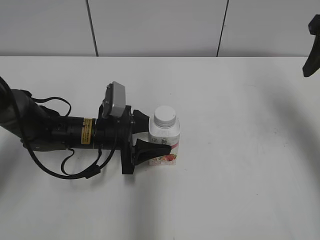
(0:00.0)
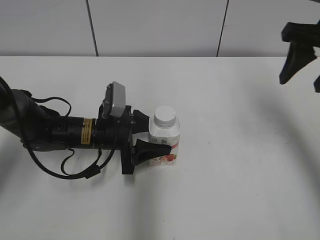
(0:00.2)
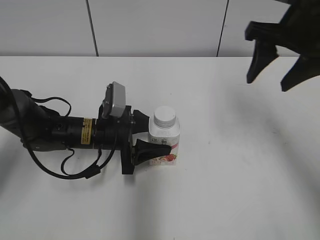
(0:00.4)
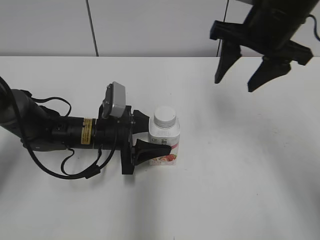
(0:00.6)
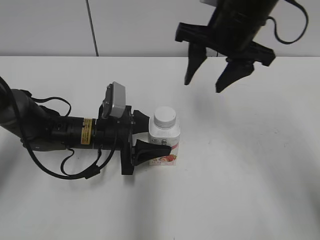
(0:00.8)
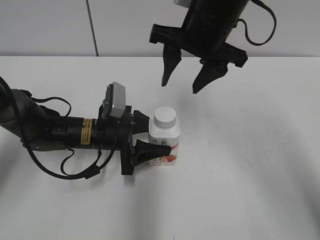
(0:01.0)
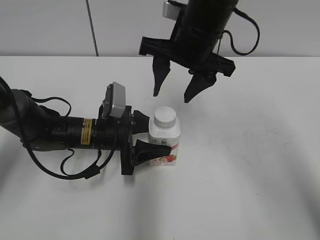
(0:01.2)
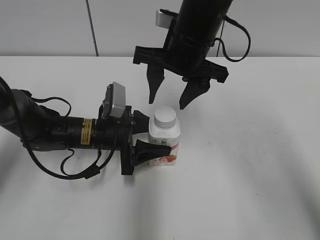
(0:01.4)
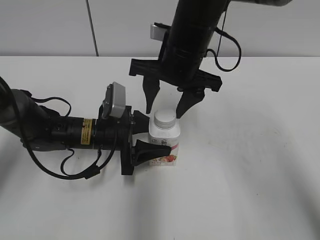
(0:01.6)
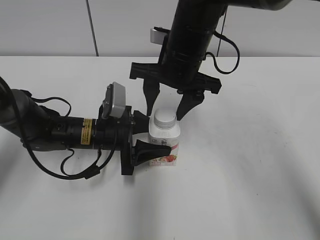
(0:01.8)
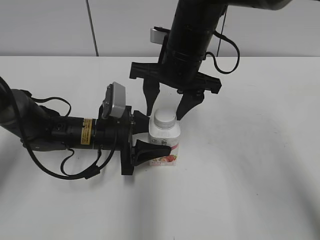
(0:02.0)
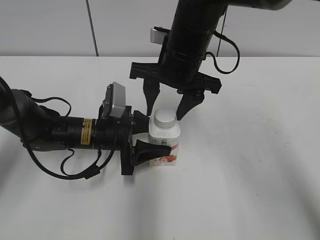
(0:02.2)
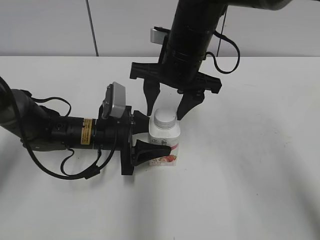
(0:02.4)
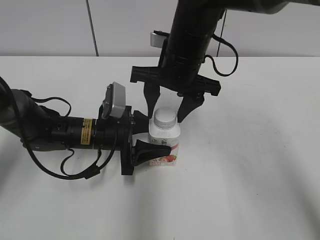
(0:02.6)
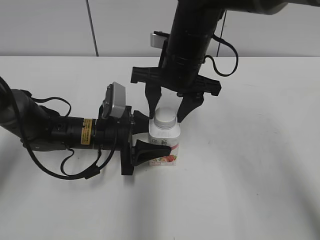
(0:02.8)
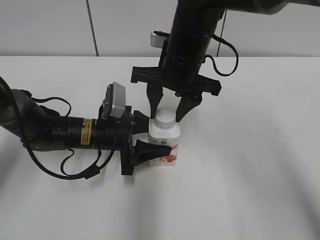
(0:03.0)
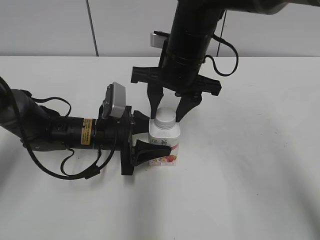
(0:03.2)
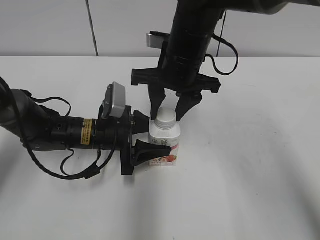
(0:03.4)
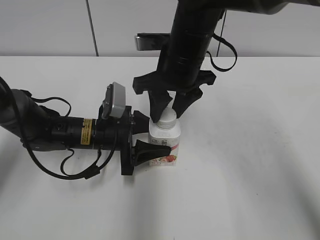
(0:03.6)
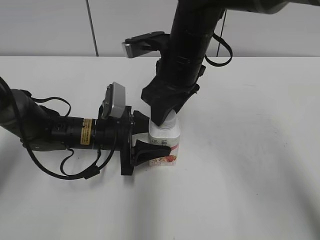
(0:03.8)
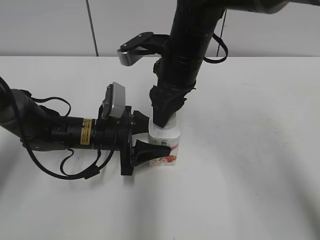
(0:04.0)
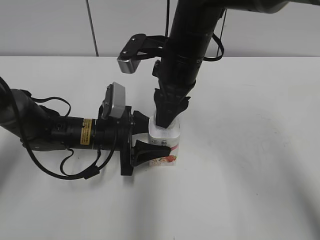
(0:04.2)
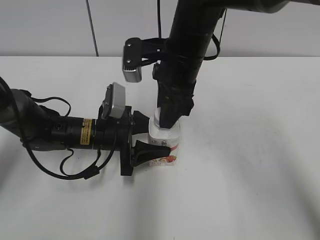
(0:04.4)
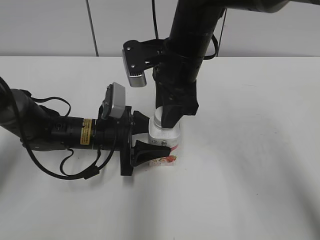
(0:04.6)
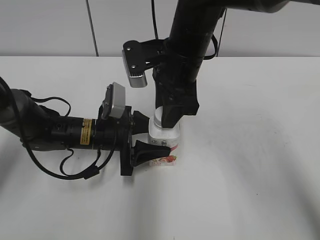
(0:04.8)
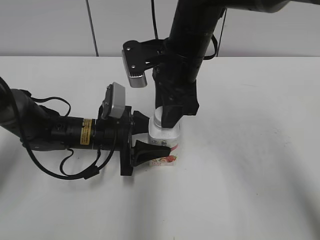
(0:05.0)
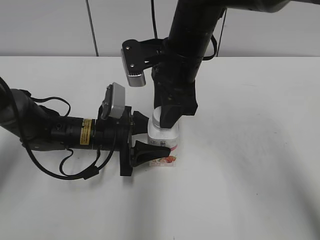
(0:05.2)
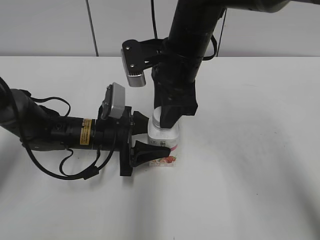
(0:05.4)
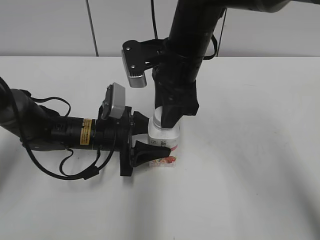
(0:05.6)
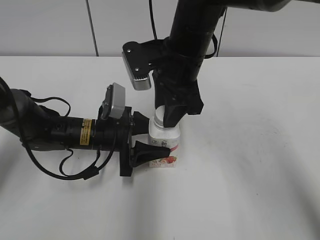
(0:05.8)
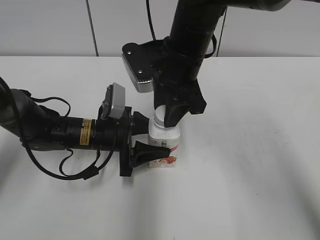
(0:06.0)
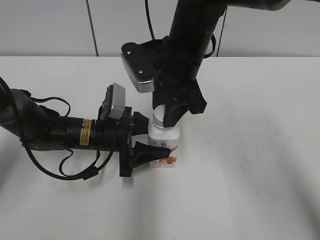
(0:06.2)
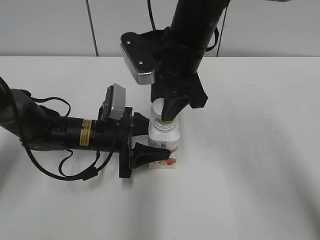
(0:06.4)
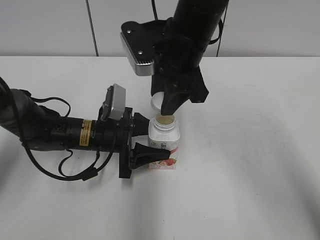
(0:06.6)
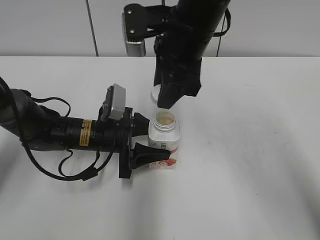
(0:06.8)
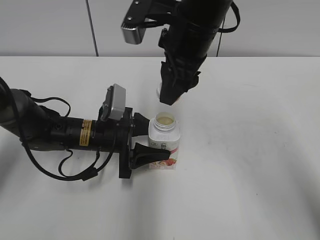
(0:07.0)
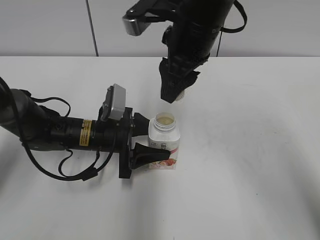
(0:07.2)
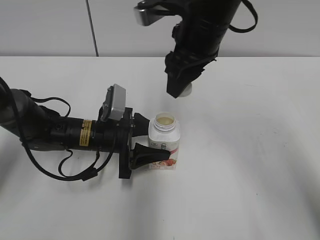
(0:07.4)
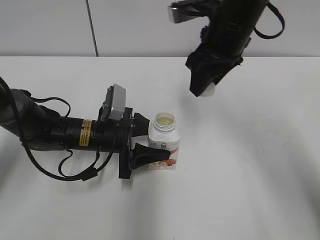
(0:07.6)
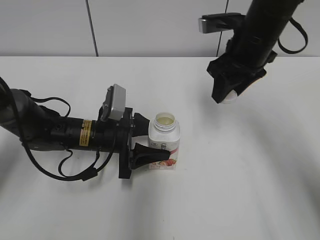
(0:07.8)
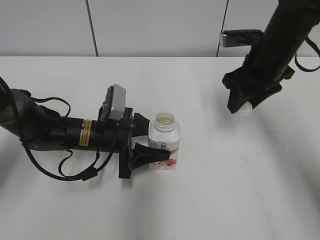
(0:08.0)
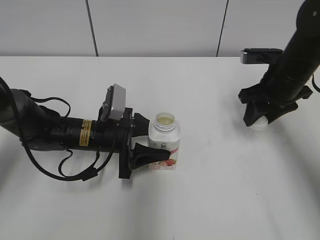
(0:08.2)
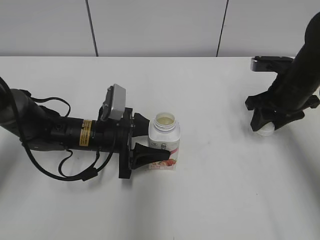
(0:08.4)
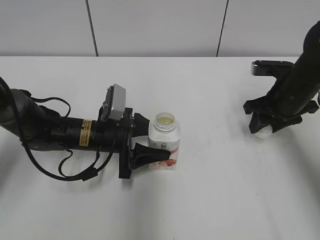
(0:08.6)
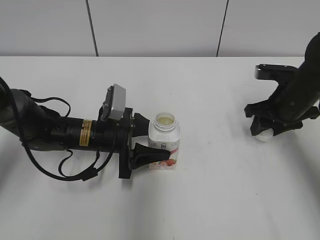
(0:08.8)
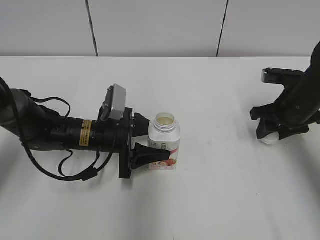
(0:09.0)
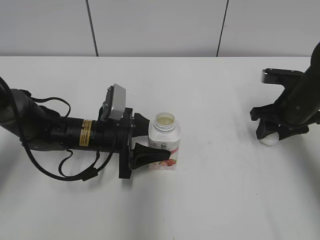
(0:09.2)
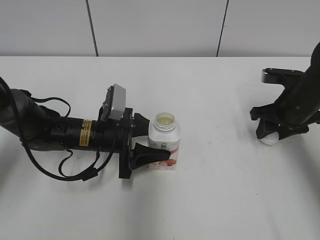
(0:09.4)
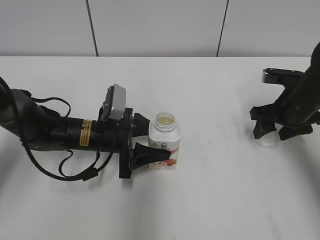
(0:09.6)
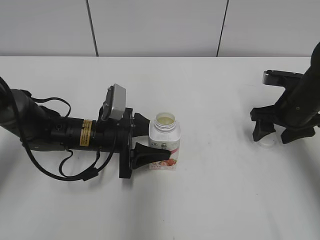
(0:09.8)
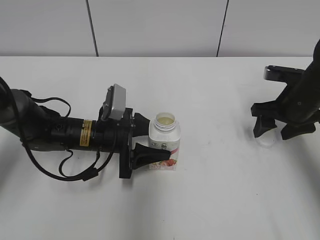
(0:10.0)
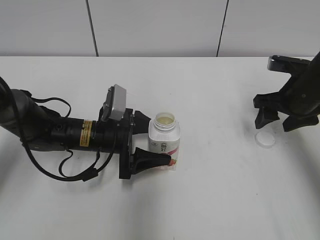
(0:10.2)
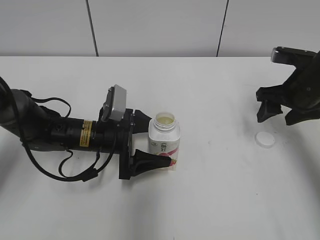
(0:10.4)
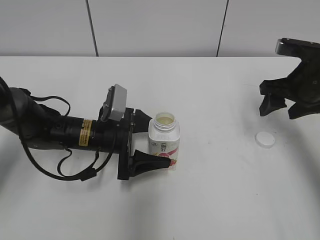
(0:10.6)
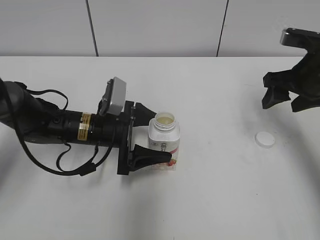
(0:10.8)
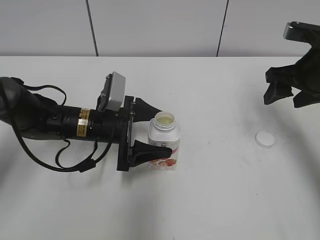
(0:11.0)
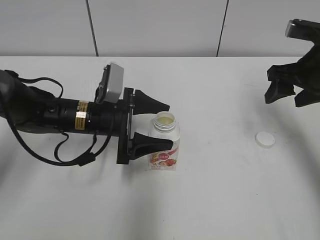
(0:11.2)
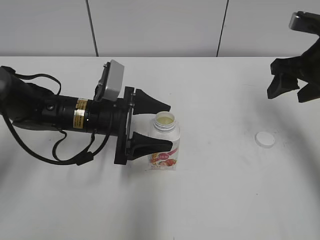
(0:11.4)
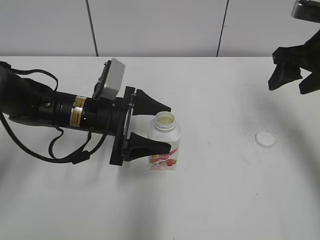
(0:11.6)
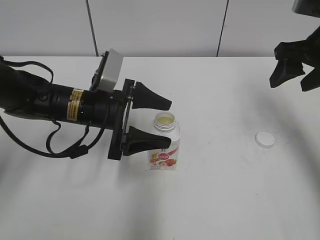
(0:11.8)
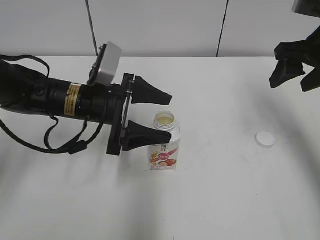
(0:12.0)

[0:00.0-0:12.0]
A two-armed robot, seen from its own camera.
Step, 0:06.6 to 0:09.6: Place the bottle cap on the right.
0:00.0 to 0:01.6: The right gripper goes about 25 cm to the left.
0:01.6 to 0:03.0: The right gripper closes up.
0:06.0 to 0:07.6: The right gripper is displaced to the right by about 5 cm.
0:07.6 to 0:09.0: The right gripper goes approximately 20 cm to the right and downward.
0:09.0 to 0:10.4: The right gripper opens its fingers, while the left gripper opens.
0:10.4 to 0:12.0: Both grippers move upward, approximately 10 cm.

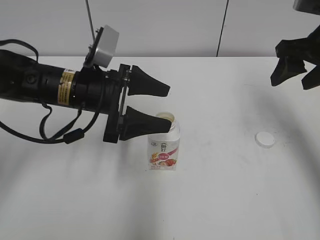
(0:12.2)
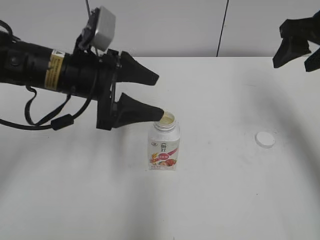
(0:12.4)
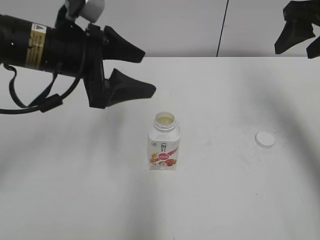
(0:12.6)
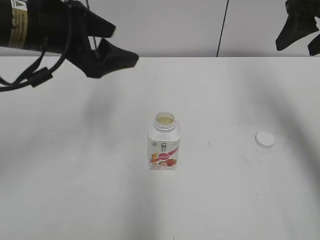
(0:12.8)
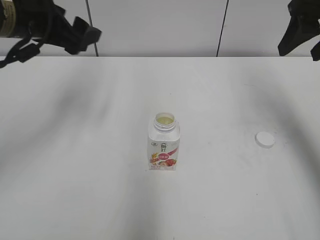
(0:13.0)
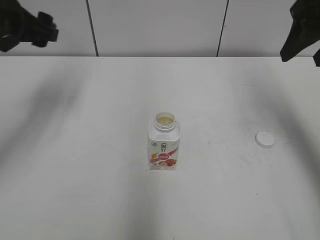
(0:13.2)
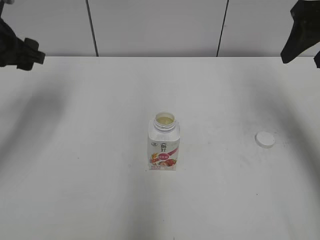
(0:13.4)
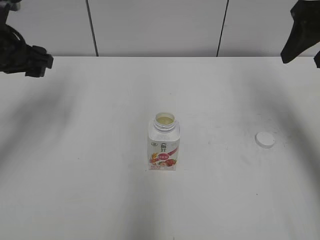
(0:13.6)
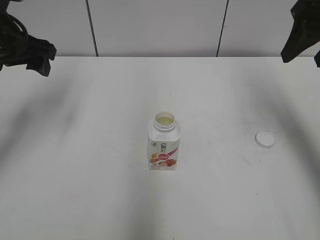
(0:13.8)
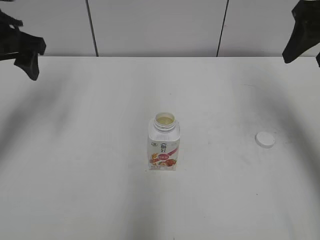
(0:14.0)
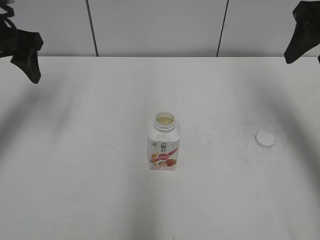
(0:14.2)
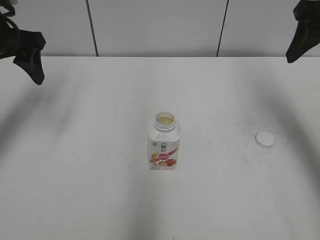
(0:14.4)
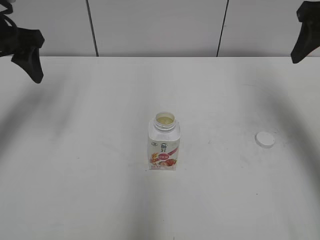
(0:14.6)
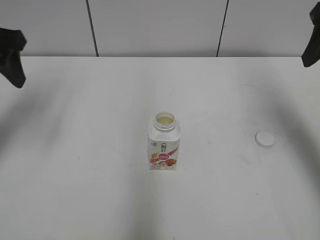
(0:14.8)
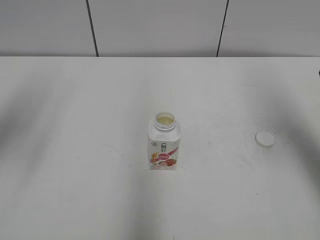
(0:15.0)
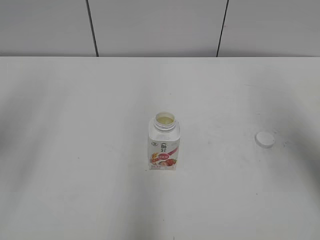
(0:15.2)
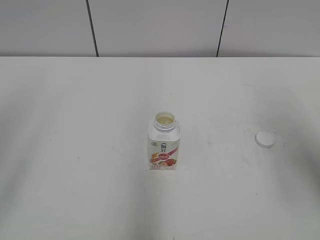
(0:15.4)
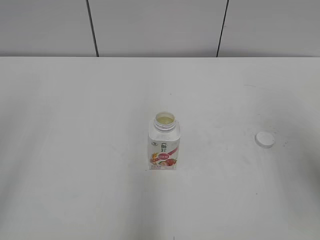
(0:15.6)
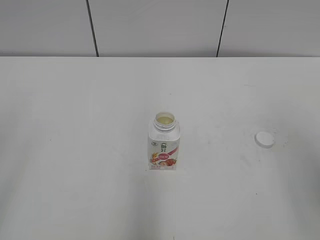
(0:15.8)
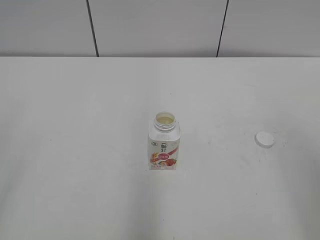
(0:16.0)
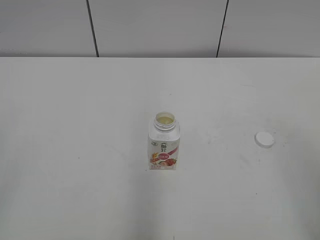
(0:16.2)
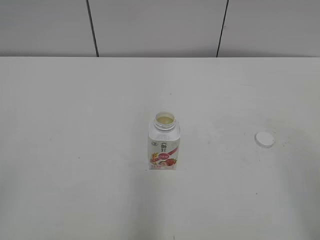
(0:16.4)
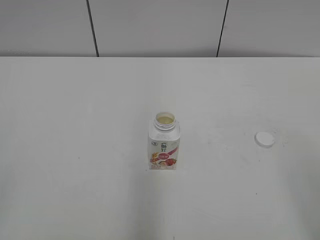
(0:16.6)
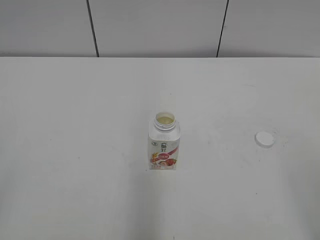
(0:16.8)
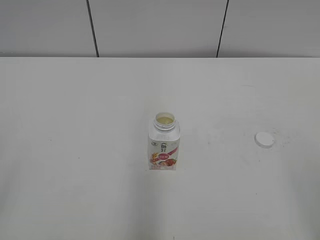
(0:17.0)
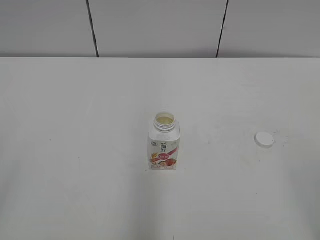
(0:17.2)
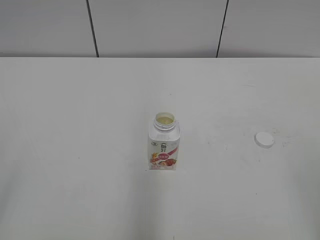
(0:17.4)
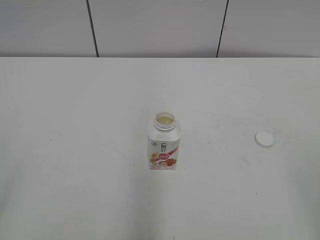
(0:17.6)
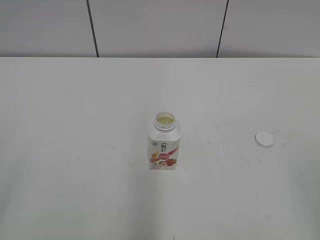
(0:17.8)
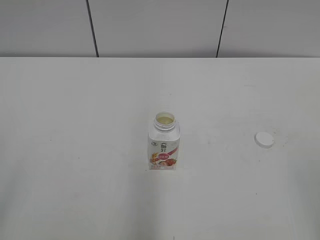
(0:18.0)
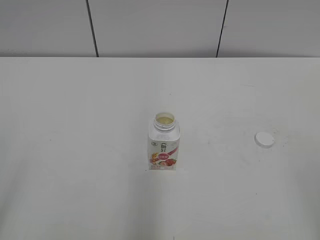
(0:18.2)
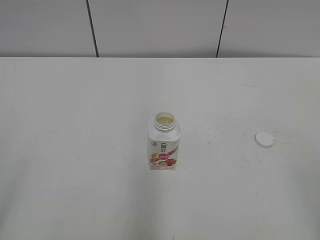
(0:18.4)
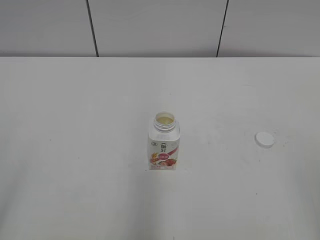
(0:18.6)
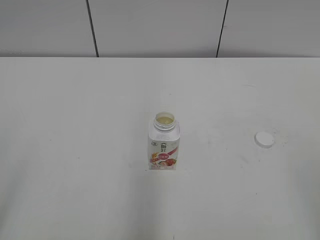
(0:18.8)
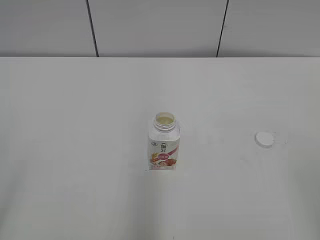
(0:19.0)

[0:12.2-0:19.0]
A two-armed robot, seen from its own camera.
0:12.2 to 0:13.6: The right gripper travels upward by about 5 cm, while the left gripper is displaced to the left and upward by roughly 15 cm.
0:13.6 to 0:15.0: The left gripper shifts approximately 10 cm upward and backward; the right gripper travels backward by approximately 5 cm.
0:15.0 to 0:16.2: Both grippers travel together backward, roughly 25 cm.
0:17.6 to 0:19.0: The two grippers keep their place.
